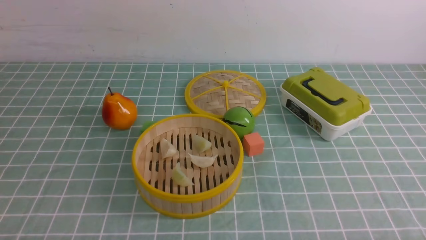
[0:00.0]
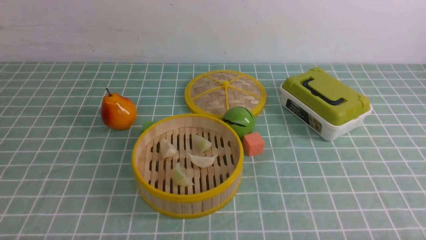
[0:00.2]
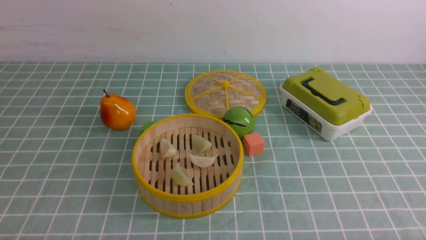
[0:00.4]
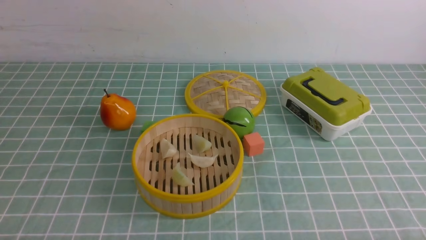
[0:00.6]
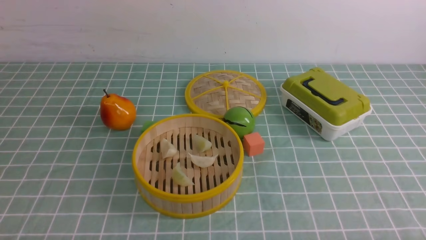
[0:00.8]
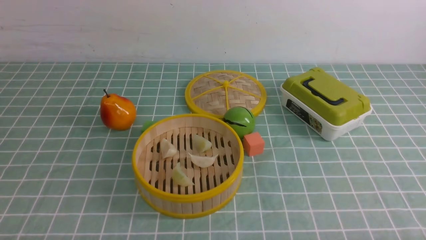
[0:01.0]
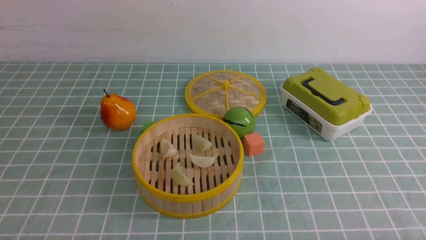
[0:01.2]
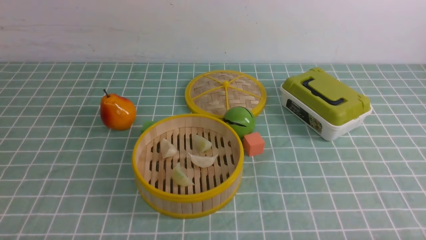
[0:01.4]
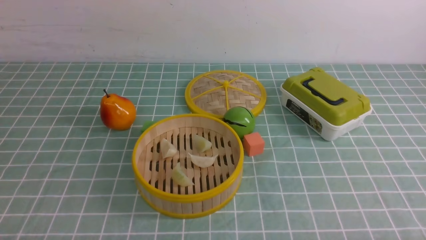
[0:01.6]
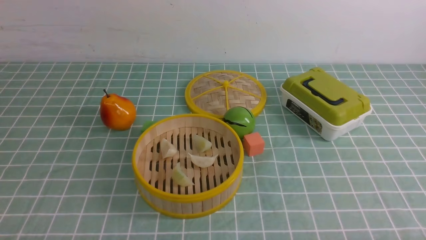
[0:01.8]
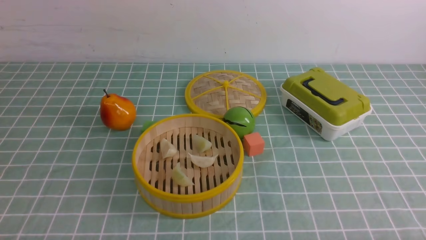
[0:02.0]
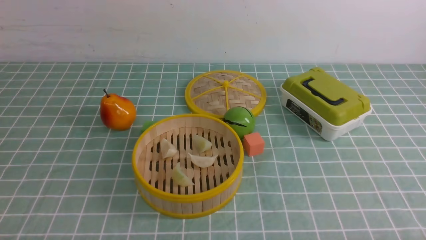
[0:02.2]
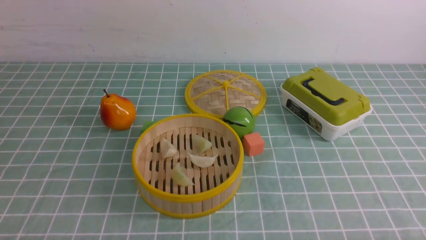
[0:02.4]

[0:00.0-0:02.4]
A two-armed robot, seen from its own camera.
Task of the whole recording: put the dumplings into the steamer on the table with the blue tablecloth.
0:00.0 to 0:02.4: The two grippers keep their place.

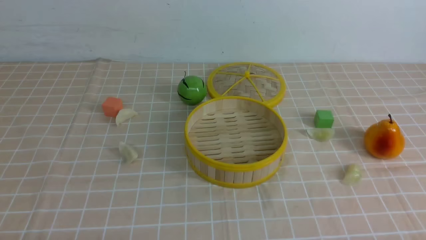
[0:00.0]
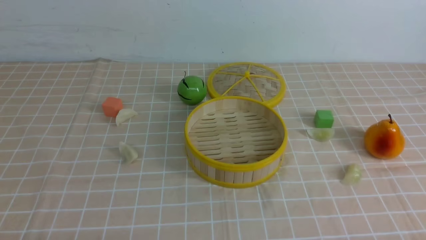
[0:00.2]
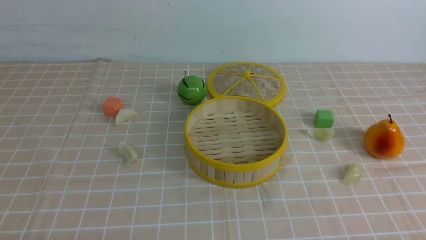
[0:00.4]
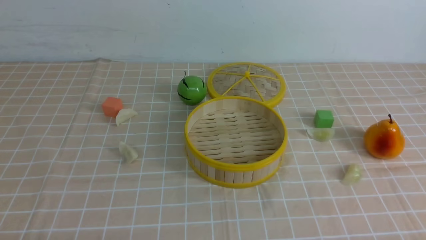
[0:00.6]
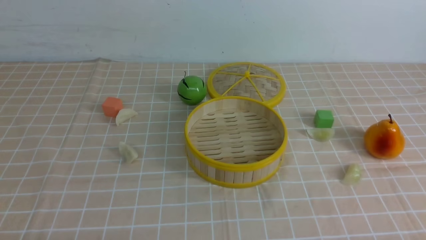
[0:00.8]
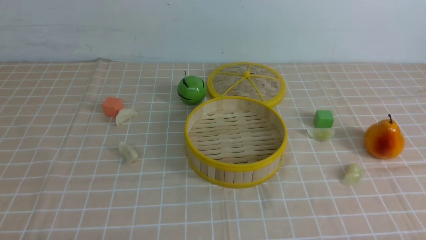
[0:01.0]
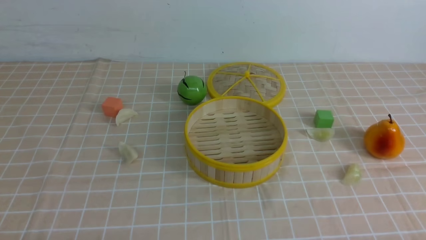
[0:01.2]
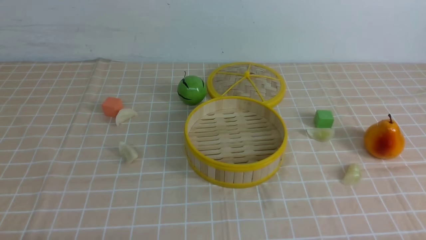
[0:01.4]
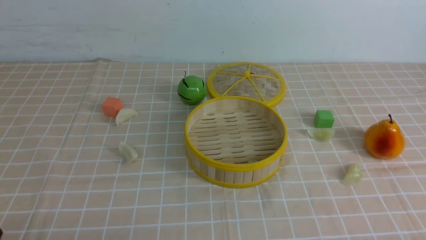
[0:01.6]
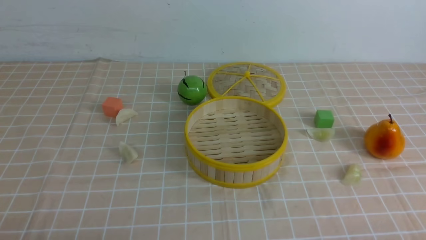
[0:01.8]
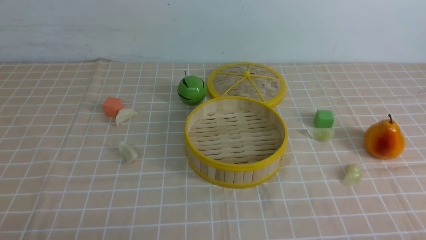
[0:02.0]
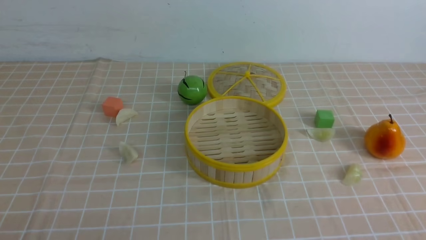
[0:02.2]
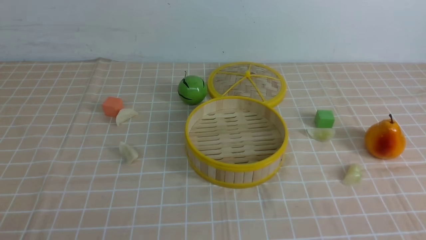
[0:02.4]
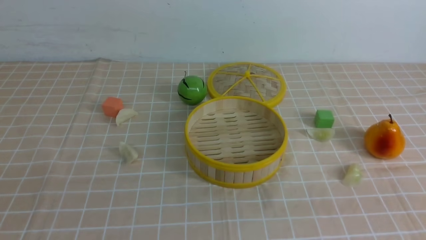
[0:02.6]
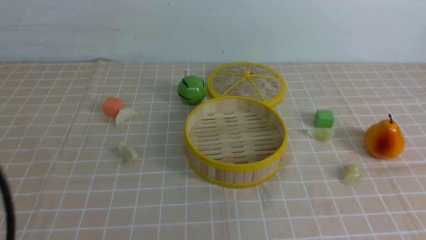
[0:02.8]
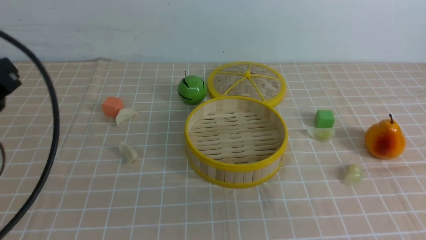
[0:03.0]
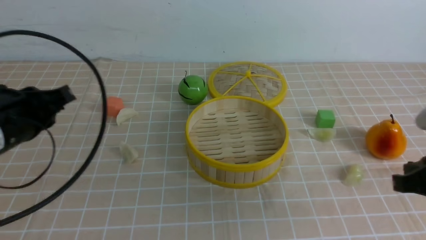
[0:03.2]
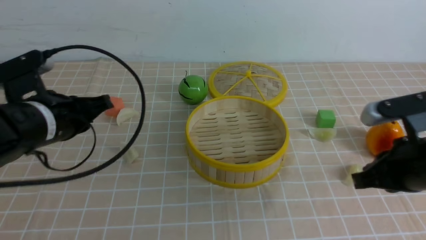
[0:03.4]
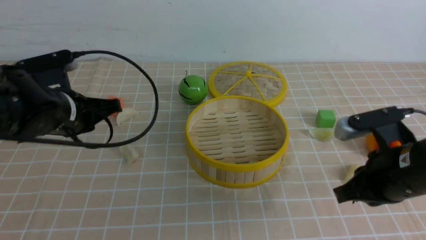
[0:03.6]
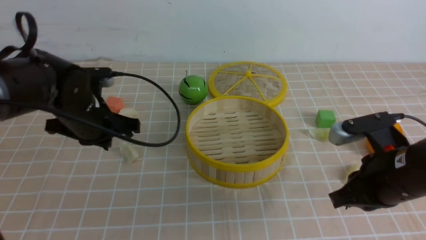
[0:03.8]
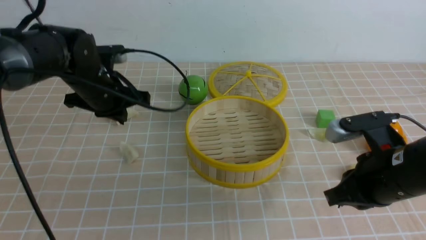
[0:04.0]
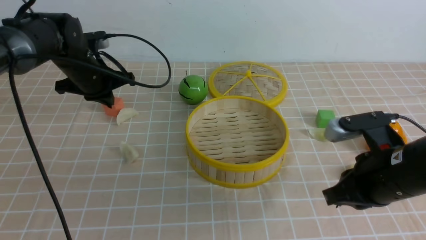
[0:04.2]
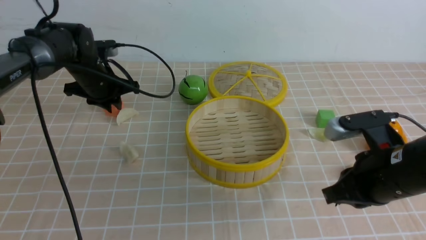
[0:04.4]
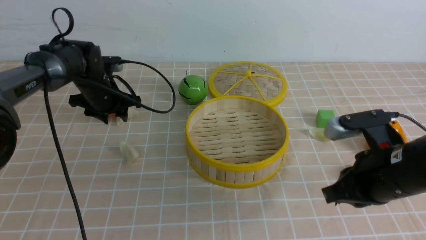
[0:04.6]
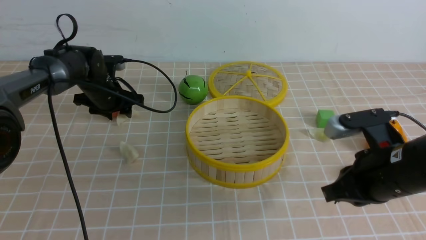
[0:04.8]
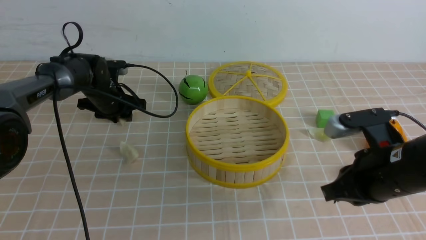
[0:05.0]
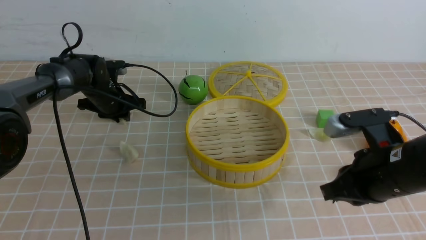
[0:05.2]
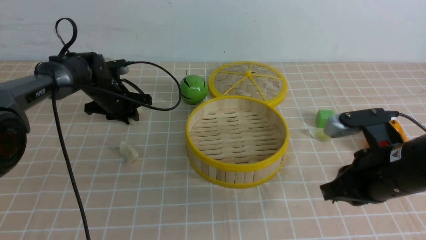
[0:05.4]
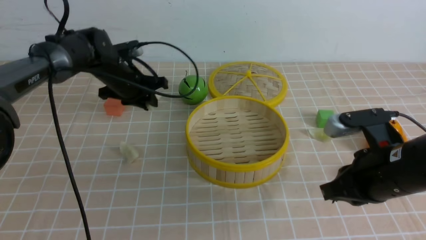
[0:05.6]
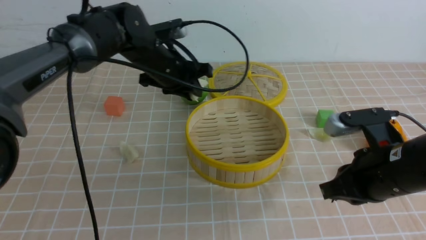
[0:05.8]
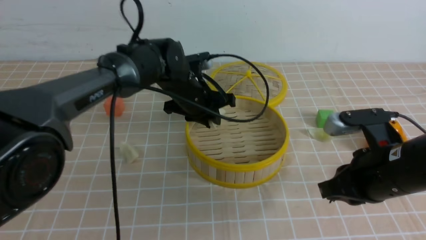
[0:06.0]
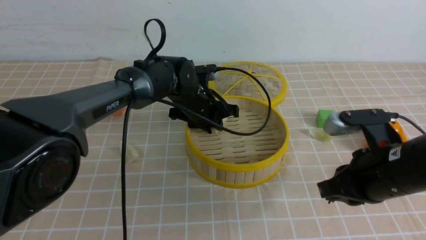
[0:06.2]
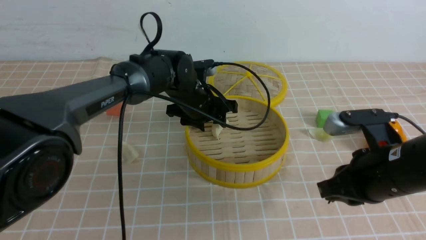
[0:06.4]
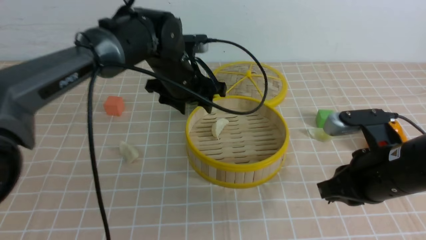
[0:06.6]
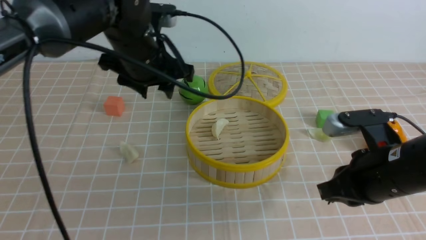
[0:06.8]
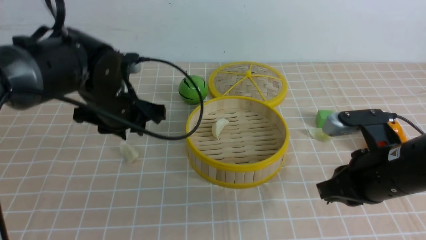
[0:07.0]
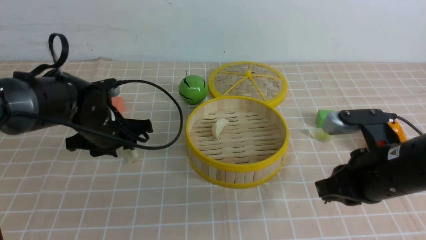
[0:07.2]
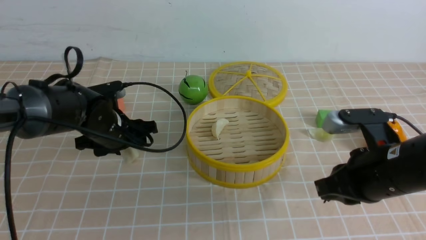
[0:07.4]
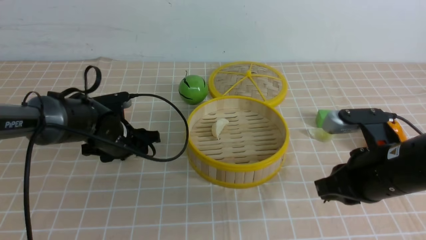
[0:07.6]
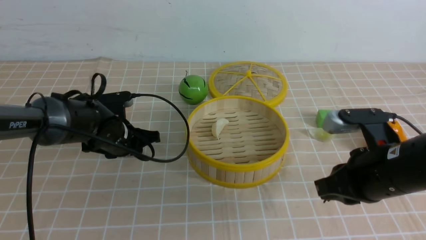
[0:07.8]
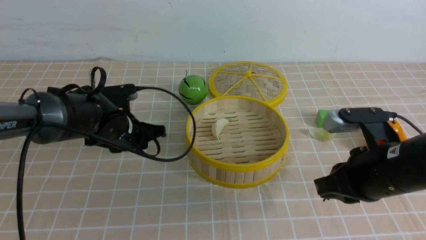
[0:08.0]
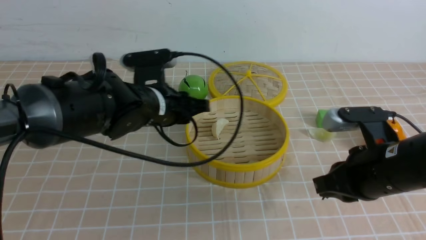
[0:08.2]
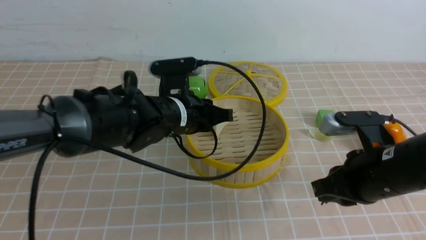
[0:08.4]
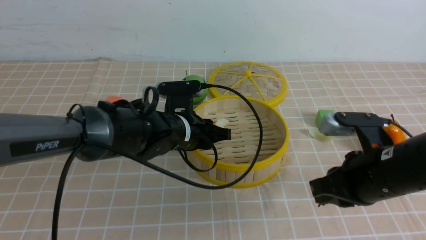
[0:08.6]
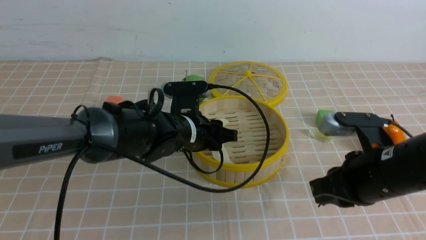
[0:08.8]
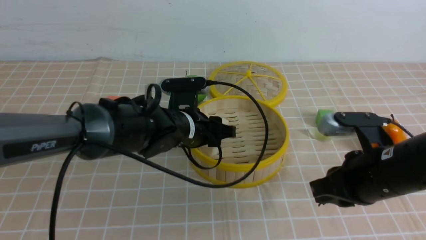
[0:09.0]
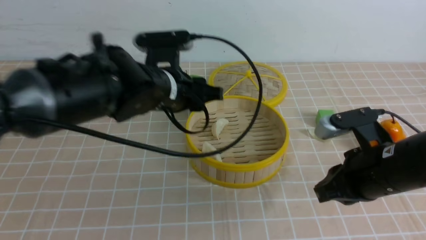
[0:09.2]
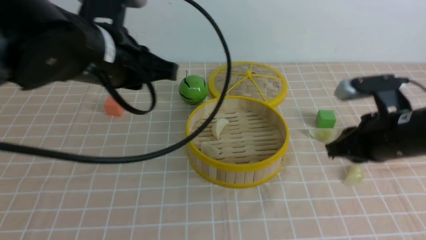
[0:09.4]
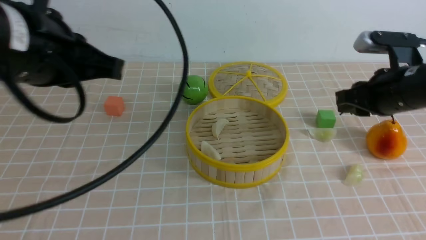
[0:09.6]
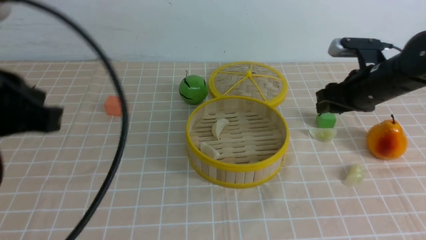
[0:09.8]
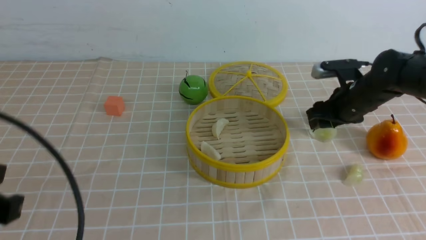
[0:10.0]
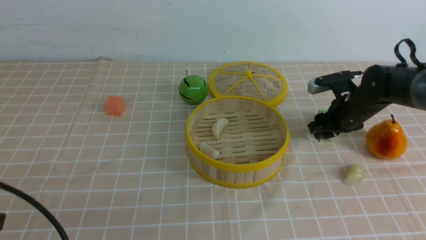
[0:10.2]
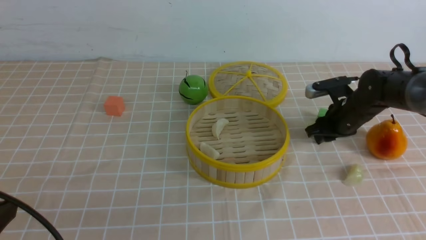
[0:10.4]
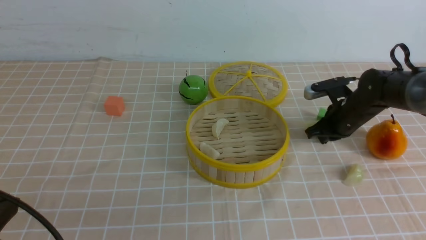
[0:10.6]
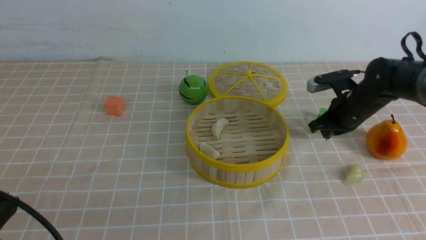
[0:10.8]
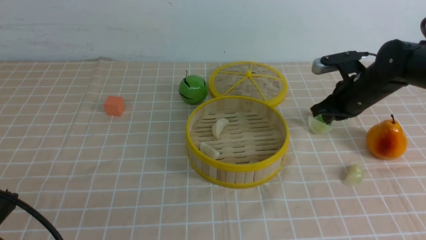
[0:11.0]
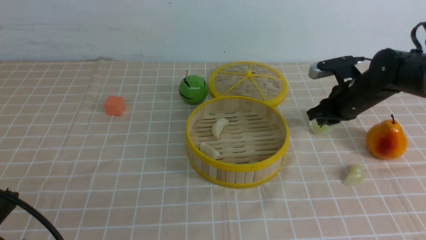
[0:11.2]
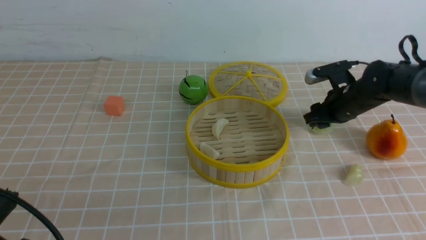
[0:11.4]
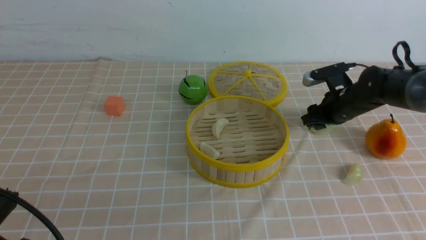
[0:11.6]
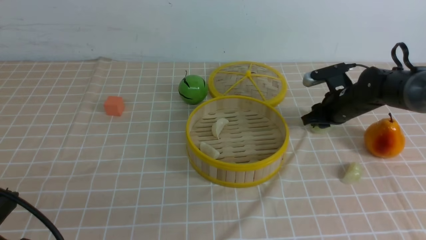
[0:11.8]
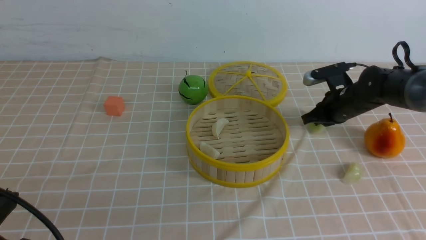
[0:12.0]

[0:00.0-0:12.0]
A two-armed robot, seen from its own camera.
Task of the whole recording: put the dumplings into the steamer on the table with the brown tablecloth.
Step, 0:00.0 to 0:05.2: use the left arm to grab a dumpling.
Step, 0:05.4 to 0:06.6: use the left arm to put the dumpling into the steamer.
Step, 0:06.8 to 0:07.6: use the left arm to grab a dumpling.
Step, 0:07.8 to 0:09.0: use the left arm to put the dumpling into the steamer.
0:01.6 to 0:03.0: The right gripper heads forward and upward, covering some 15 cm; the left gripper shifts approximately 20 cm upward and forward.
0:03.0 to 0:04.4: The right gripper goes approximately 10 cm to the left and forward, while the left gripper goes roughly 30 cm forward, and opens up.
0:04.4 to 0:06.0: The left gripper moves to the right, about 15 cm.
0:06.0 to 0:07.6: The left gripper shifts some 15 cm to the left, backward and downward, and opens its fingers.
0:07.6 to 0:09.0: The left gripper travels to the right and upward by about 15 cm, and closes, then reopens.
0:09.0 to 0:10.4: The right gripper is displaced forward by approximately 20 cm, and opens, then closes once more. The left gripper heads backward and to the left, covering roughly 30 cm, and closes.
0:10.4 to 0:12.0: The grippers stay close to where they were, moving slightly.

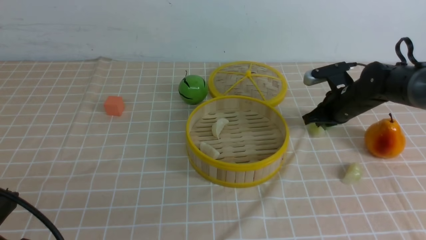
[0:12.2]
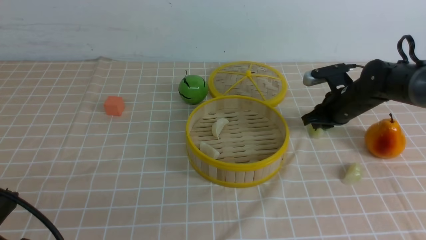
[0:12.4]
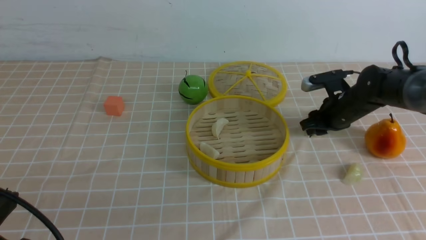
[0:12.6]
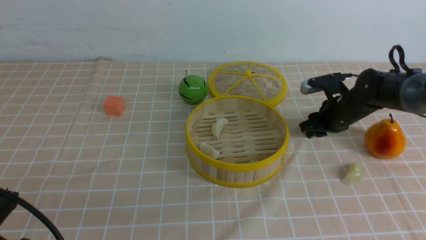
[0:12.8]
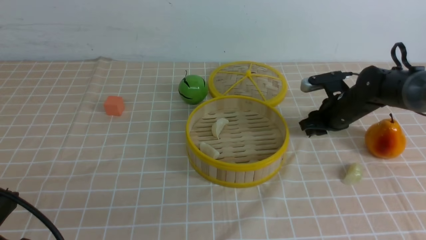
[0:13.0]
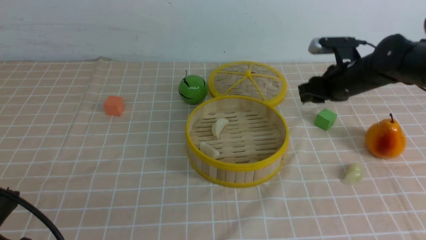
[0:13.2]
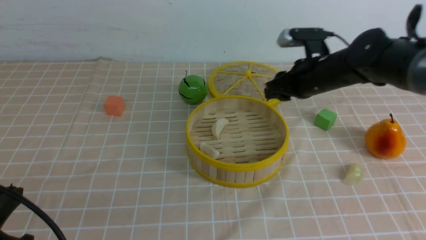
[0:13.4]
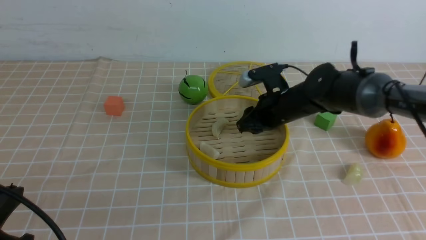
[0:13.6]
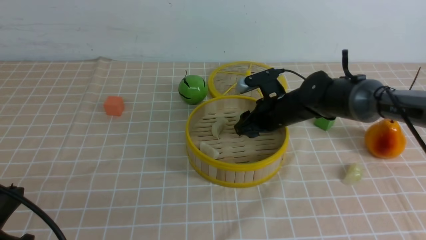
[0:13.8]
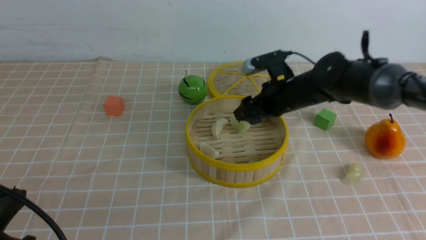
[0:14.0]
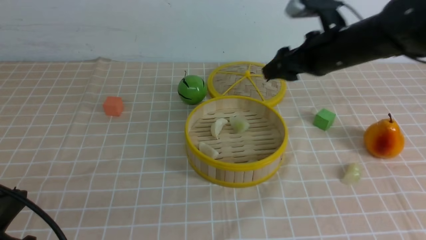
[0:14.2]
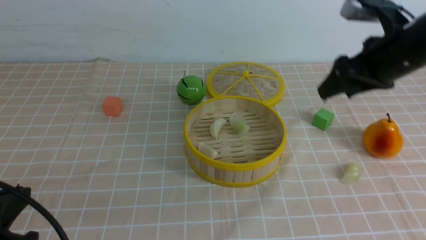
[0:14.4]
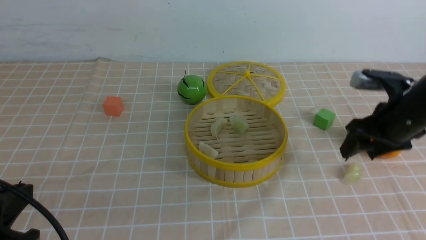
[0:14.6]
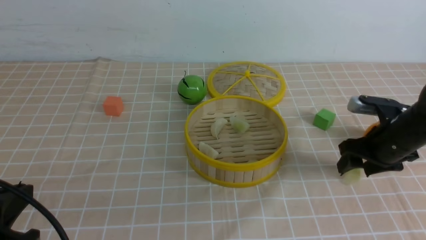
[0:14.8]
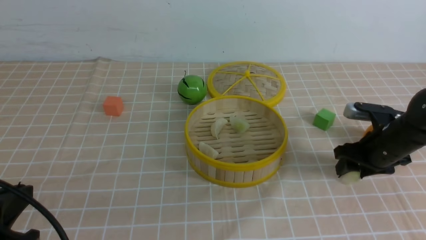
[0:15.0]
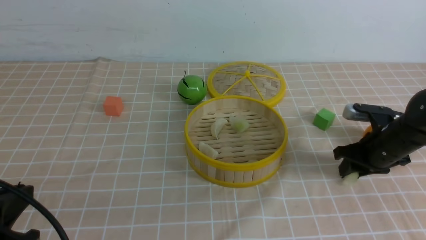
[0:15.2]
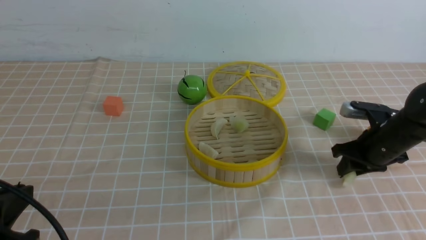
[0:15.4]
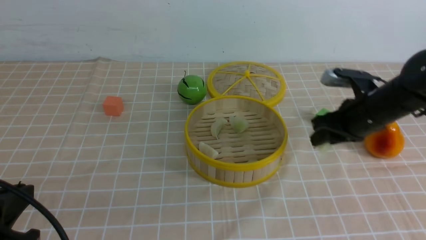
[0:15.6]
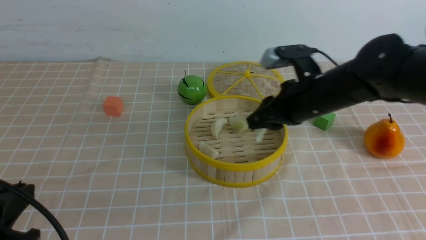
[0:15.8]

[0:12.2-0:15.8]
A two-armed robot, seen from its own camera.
Task of the whole recording: put the dumplings into the steamer on the table with the brown tablecloth.
Step, 0:13.0 to 0:14.2: use the right arm to put the dumpling into the steamer.
Step, 0:14.4 to 0:15.2: use the right arm to grab a dumpling.
0:12.2 to 0:14.0: The right gripper travels to the left and upward by roughly 15 cm, and opens.
0:14.0 to 0:15.8: The right gripper travels backward by approximately 5 cm, reaches some 15 cm to the right, then returns, and closes its fingers.
